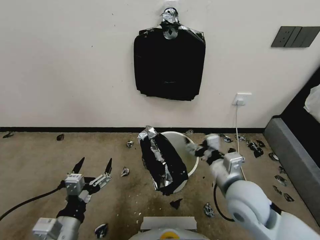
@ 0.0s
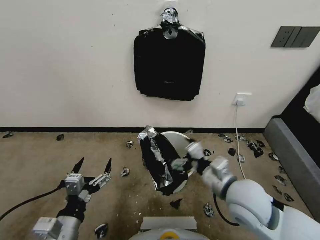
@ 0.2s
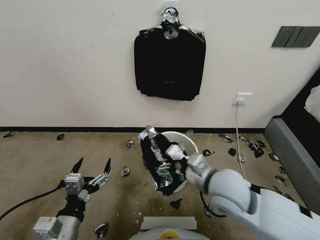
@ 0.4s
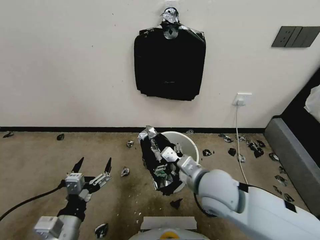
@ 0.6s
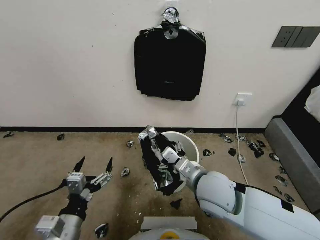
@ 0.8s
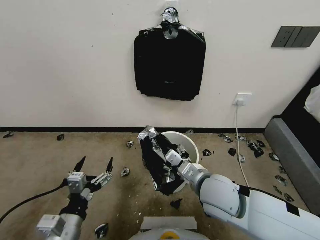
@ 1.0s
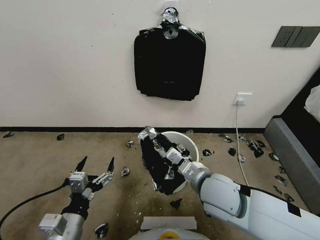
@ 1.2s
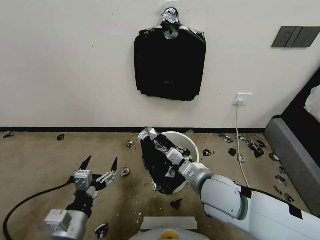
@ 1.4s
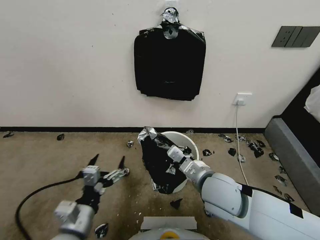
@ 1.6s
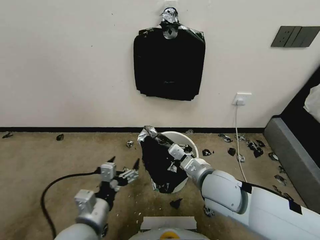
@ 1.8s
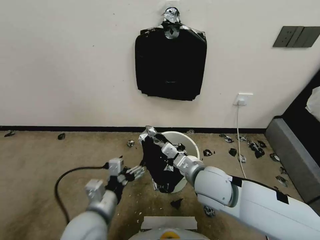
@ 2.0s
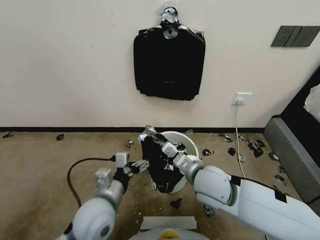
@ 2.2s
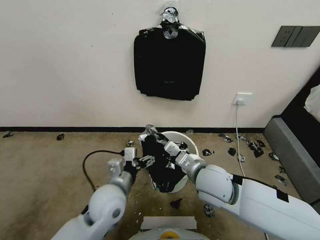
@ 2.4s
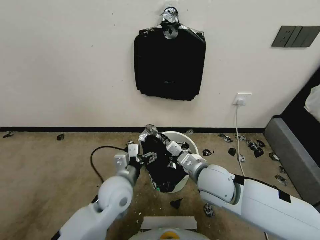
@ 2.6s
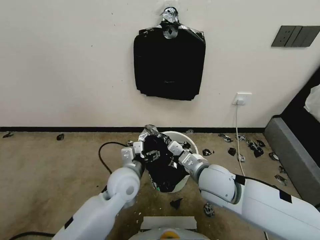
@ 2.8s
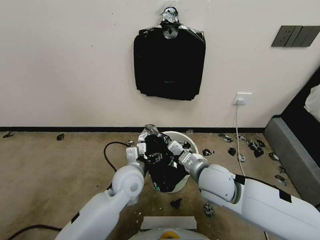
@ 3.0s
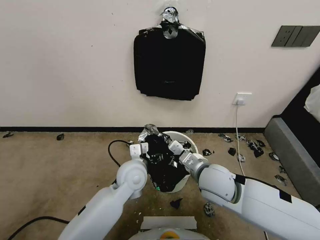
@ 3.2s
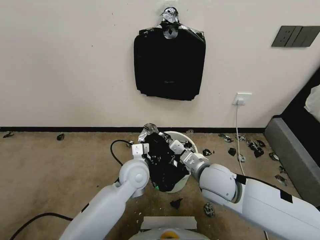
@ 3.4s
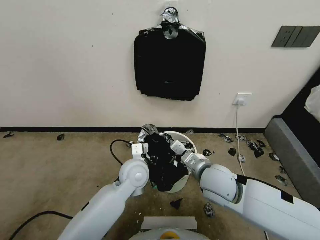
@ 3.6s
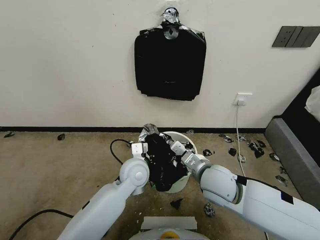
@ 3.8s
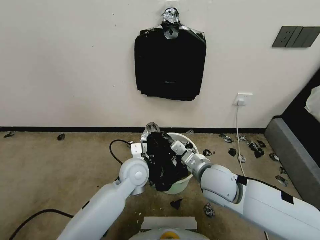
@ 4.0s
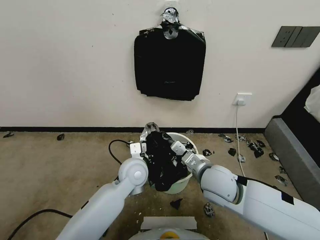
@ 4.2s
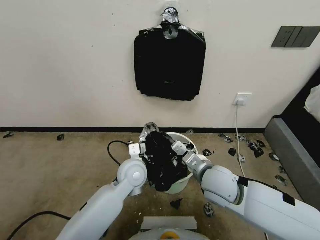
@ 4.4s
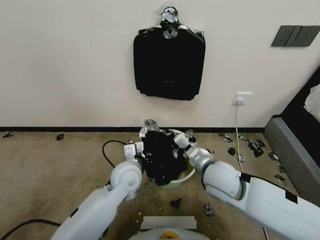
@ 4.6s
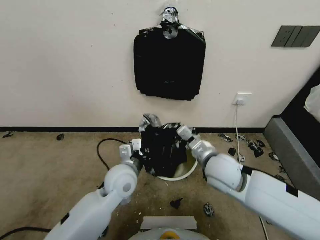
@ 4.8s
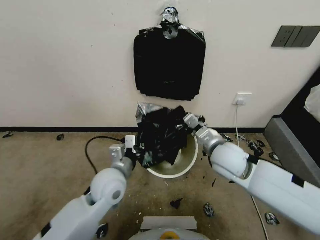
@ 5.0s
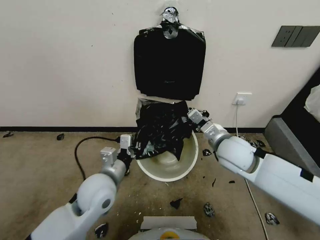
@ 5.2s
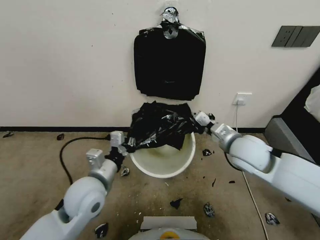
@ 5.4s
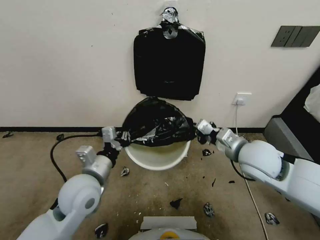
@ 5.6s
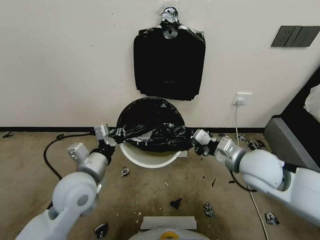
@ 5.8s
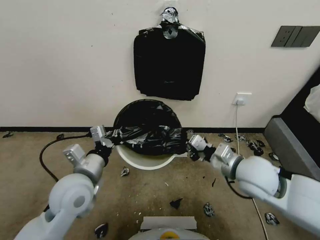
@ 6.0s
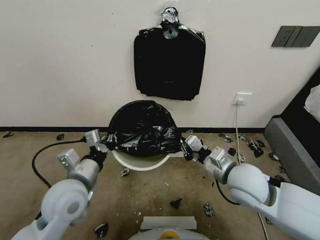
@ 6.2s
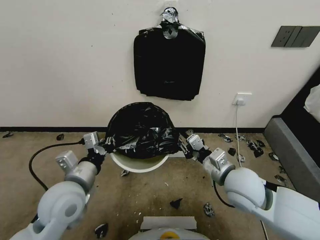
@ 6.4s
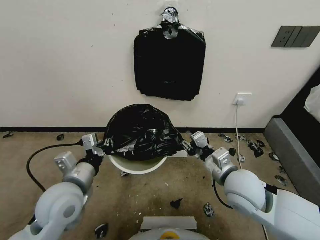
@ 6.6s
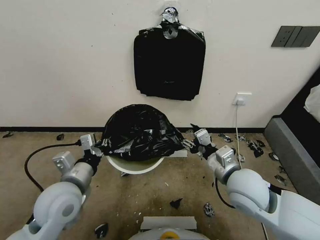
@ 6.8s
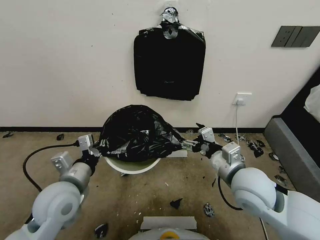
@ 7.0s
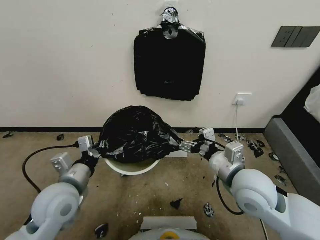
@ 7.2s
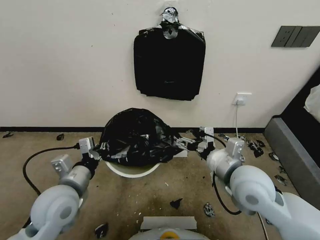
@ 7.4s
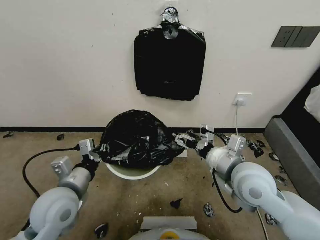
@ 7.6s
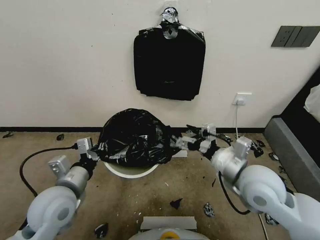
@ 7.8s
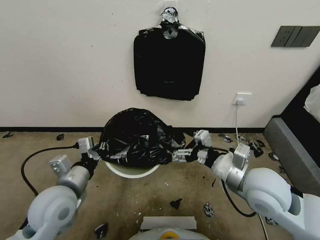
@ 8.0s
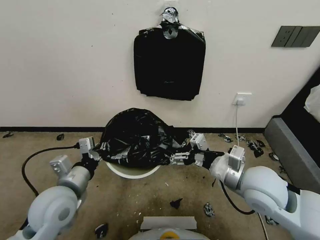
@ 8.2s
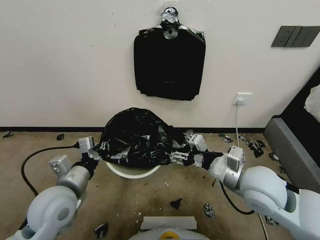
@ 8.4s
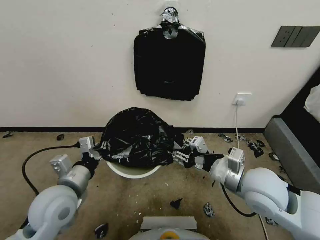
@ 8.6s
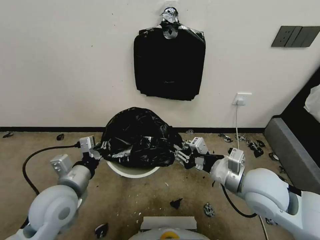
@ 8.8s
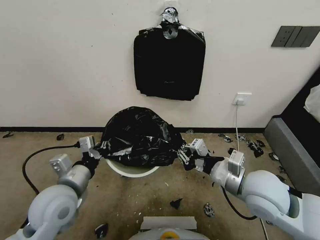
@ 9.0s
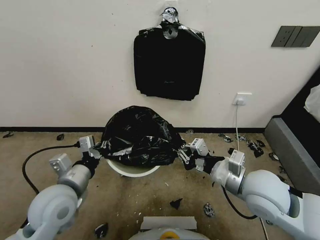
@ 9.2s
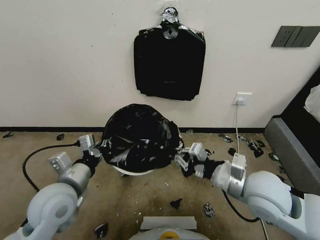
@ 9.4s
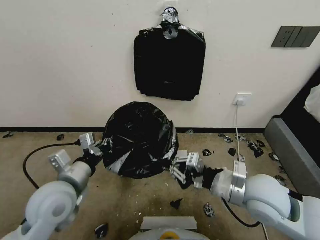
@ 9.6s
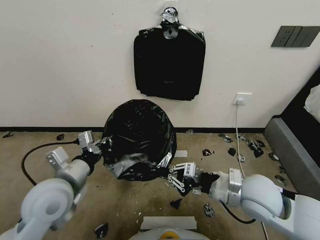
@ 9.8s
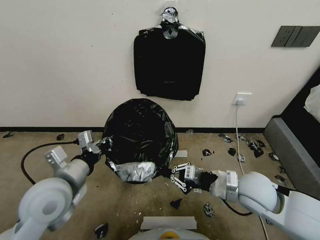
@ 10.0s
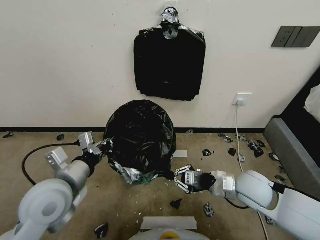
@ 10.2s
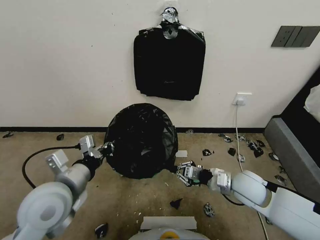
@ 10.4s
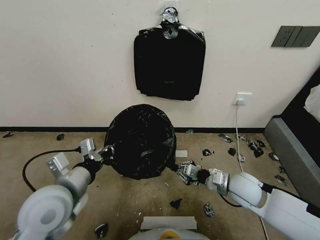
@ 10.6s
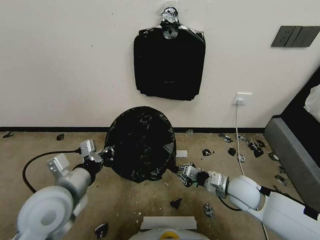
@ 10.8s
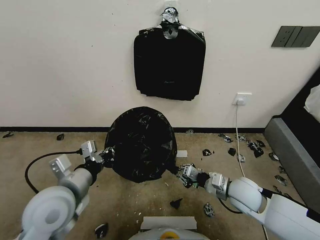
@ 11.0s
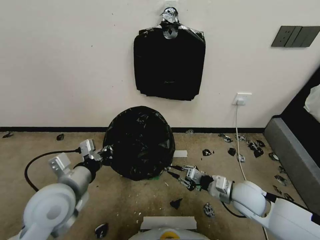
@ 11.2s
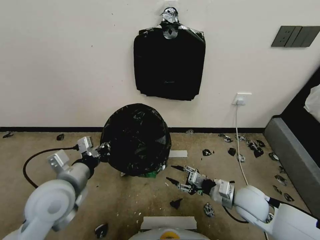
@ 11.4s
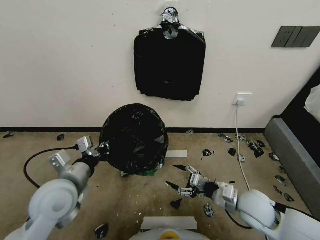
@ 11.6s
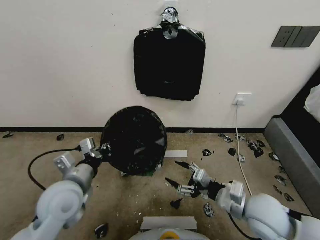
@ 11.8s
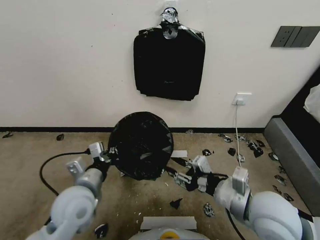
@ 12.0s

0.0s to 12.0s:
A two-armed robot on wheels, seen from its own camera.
Task of the whole recording: Place a trash bag onto the trash bin.
0.0s to 1.6s: The right gripper moves to the left, some 5 cm, and closes.
1.6s to 3.0s: The left gripper goes roughly 20 cm forward and to the right.
3.0s to 4.4s: The left gripper closes up.
4.4s to 6.0s: The right gripper shifts some 10 cm to the right. The left gripper moves to the left, backward and upward, roughly 15 cm.
6.0s to 7.6s: The right gripper opens.
7.6s to 9.0s: The right gripper closes.
9.0s to 10.4s: The right gripper moves downward, roughly 10 cm.
10.4s to 12.0s: The left gripper moves downward, about 5 cm; the right gripper moves upward and backward, about 15 cm, and opens.

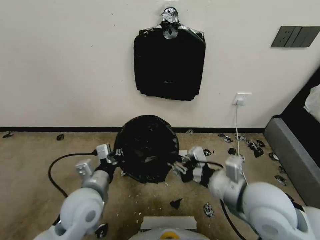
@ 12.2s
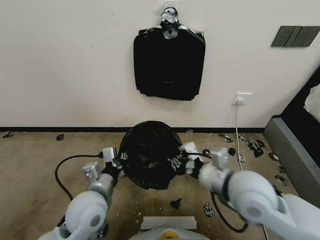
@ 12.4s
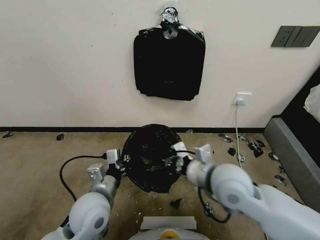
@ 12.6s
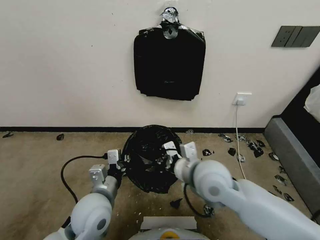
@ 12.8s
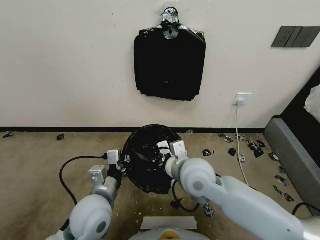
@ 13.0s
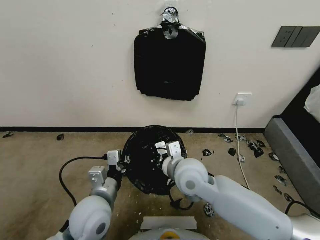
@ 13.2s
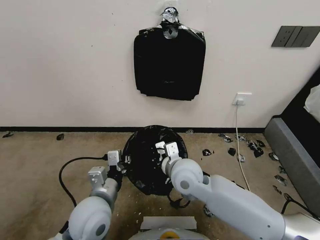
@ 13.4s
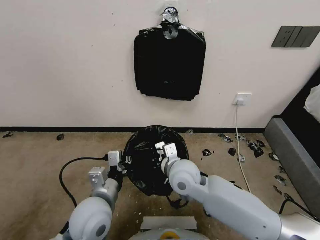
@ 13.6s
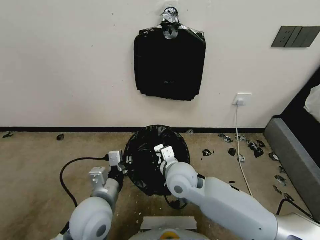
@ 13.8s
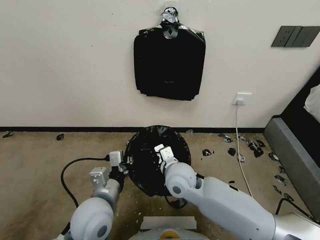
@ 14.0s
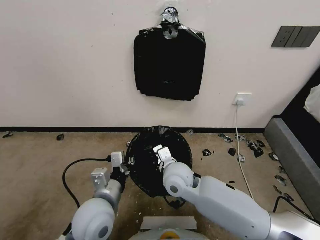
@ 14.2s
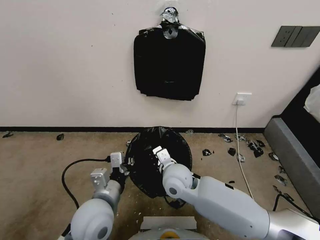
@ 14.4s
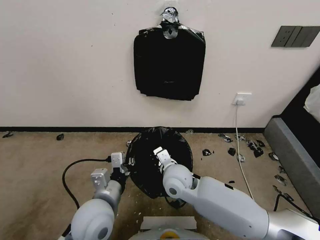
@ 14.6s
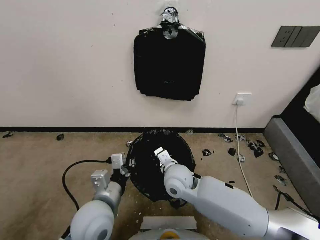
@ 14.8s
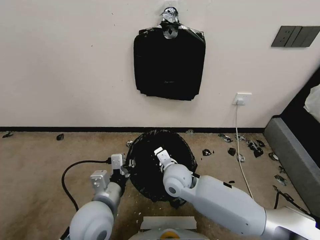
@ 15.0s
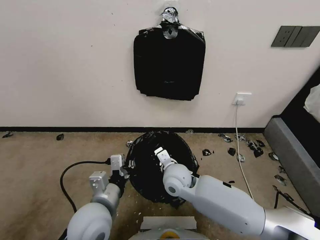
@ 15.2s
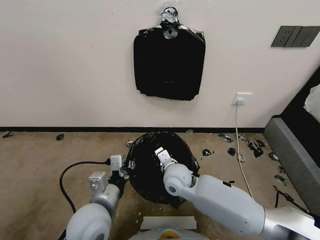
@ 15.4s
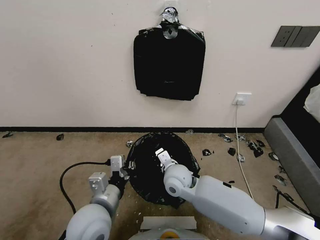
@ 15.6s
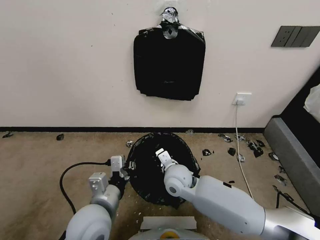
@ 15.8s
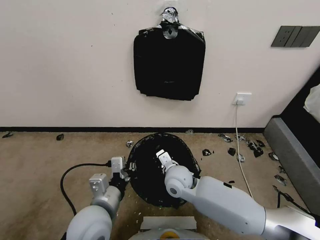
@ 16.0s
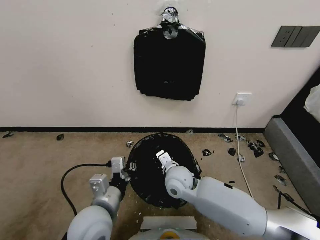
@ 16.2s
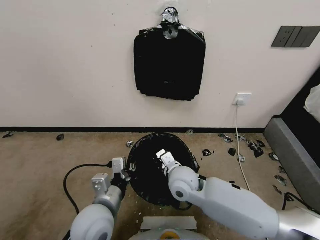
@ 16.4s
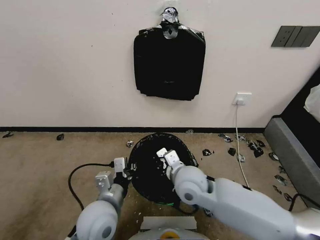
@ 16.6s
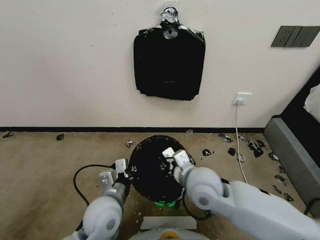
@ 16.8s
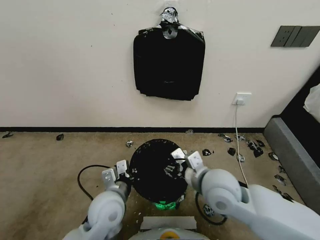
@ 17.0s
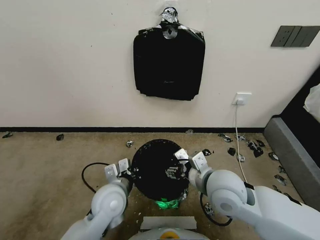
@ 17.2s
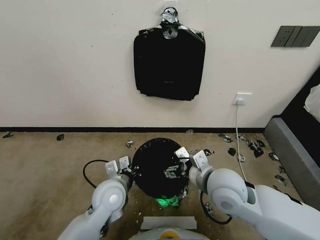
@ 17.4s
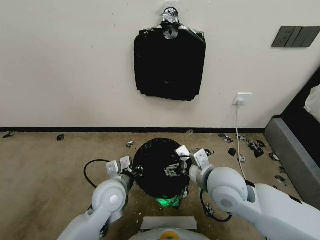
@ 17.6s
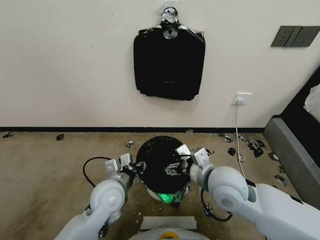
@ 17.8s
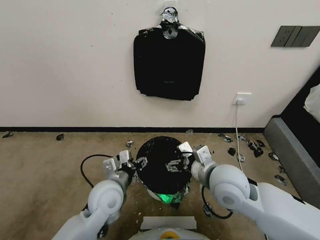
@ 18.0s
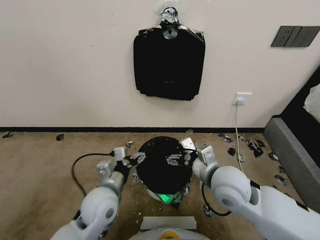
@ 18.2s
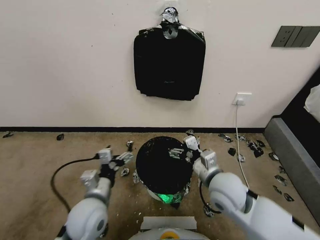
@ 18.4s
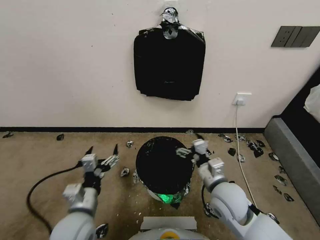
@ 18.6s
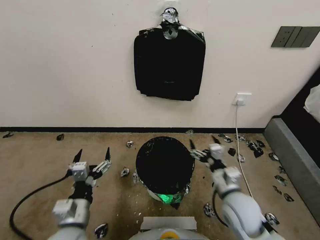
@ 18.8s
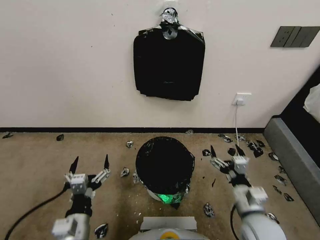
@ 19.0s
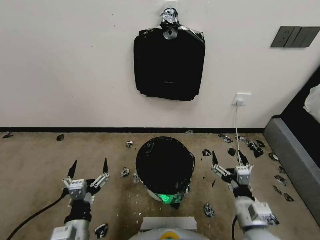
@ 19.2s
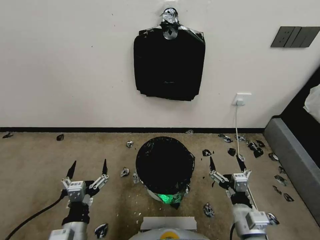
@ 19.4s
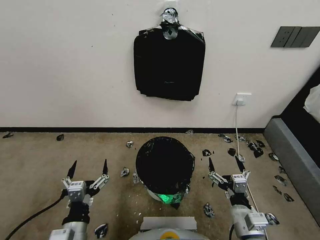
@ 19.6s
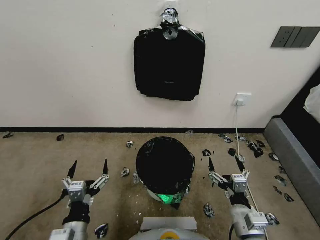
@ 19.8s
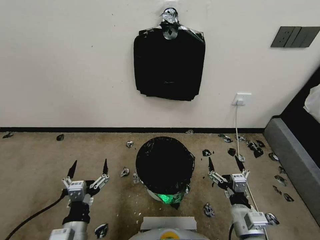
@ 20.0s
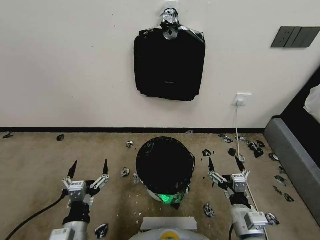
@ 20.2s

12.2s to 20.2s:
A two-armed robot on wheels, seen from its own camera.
Task of the whole recording: Place a trash bag onto the trash bin.
12.2s to 13.8s: The right gripper is displaced to the left, downward and forward by about 20 cm.
13.8s to 15.4s: The right gripper goes about 5 cm downward.
15.4s to 17.0s: The left gripper ends up about 5 cm from where it was, while the right gripper travels upward, to the right and backward by approximately 15 cm, and opens up.
17.0s to 18.6s: The left gripper heads to the left, covering some 5 cm, and opens, while the right gripper heads downward and to the right, covering approximately 10 cm, and opens up.
18.6s to 20.2s: The right gripper is displaced backward by about 10 cm; the left gripper travels backward by roughly 10 cm.
